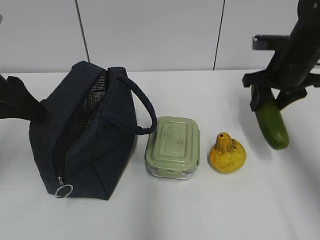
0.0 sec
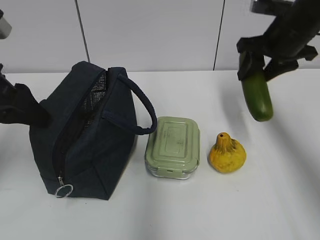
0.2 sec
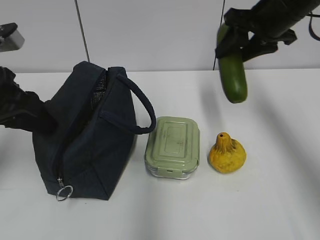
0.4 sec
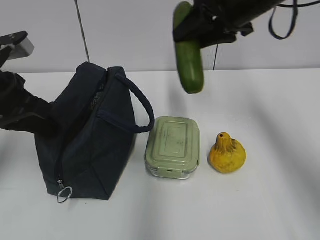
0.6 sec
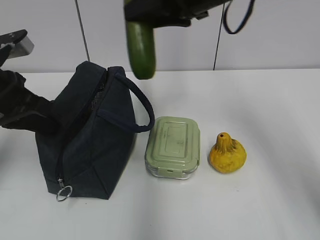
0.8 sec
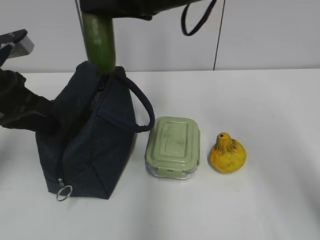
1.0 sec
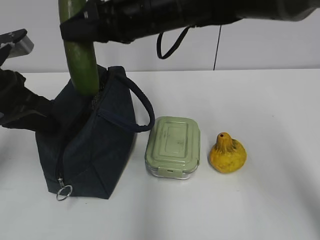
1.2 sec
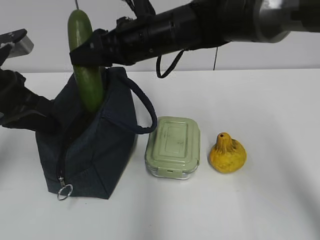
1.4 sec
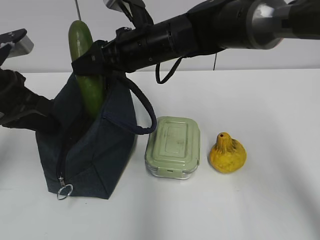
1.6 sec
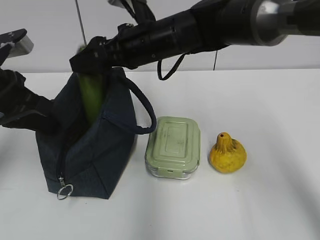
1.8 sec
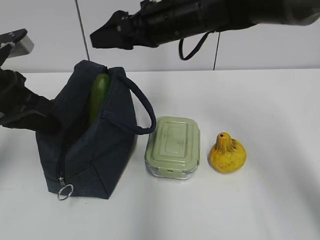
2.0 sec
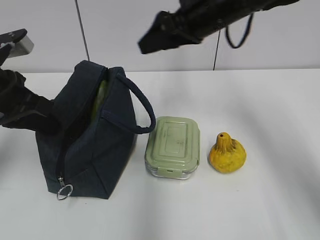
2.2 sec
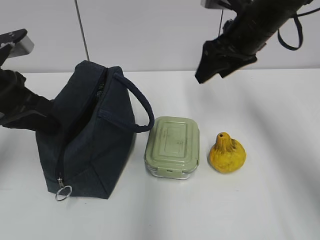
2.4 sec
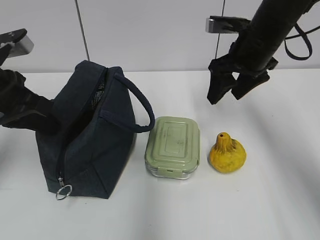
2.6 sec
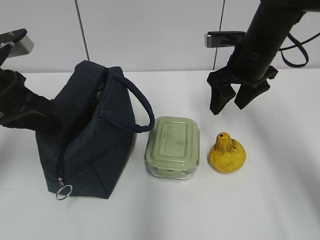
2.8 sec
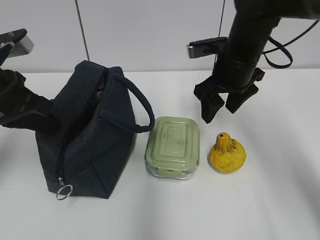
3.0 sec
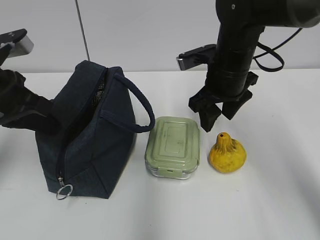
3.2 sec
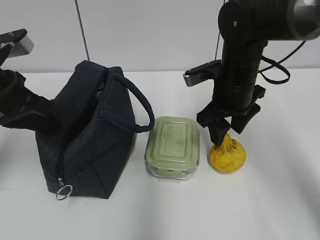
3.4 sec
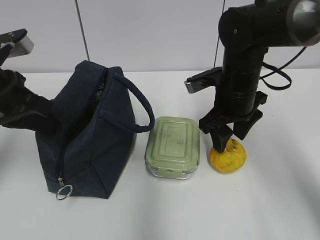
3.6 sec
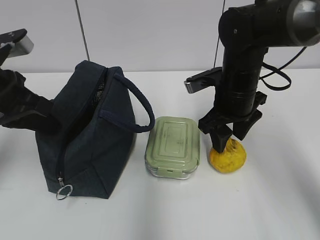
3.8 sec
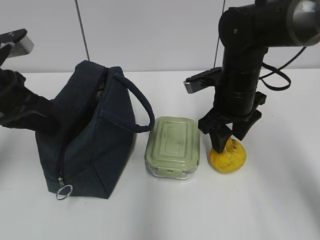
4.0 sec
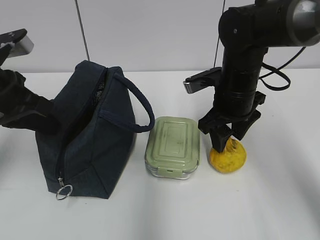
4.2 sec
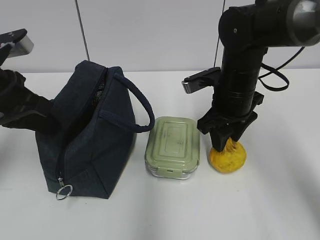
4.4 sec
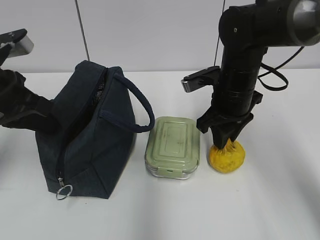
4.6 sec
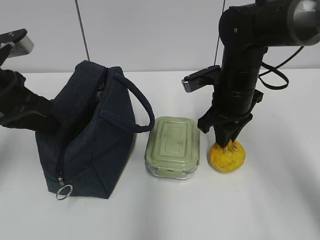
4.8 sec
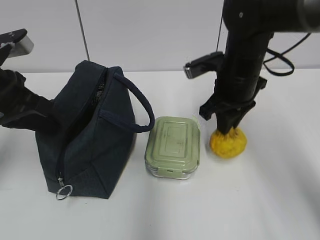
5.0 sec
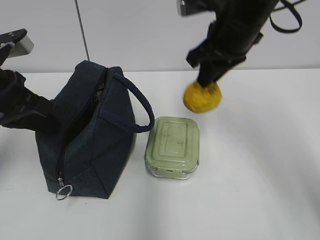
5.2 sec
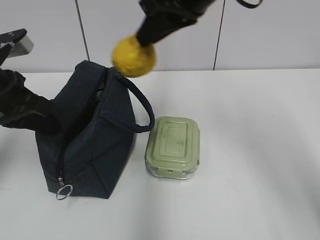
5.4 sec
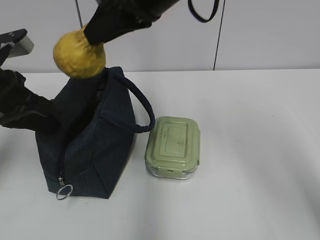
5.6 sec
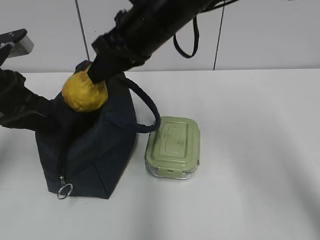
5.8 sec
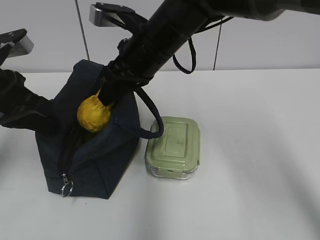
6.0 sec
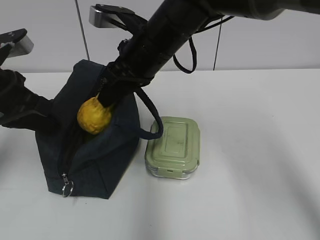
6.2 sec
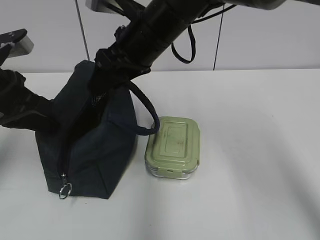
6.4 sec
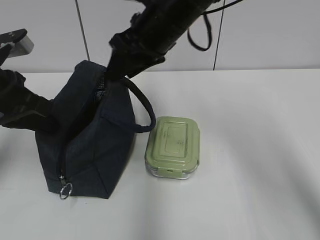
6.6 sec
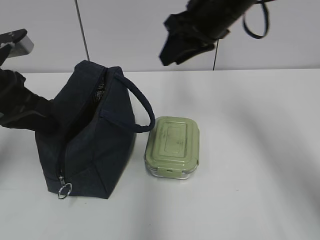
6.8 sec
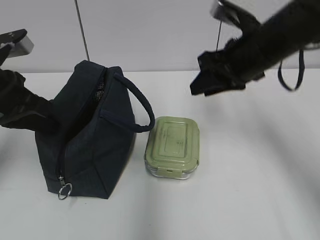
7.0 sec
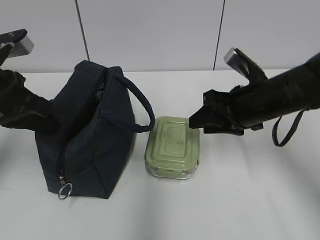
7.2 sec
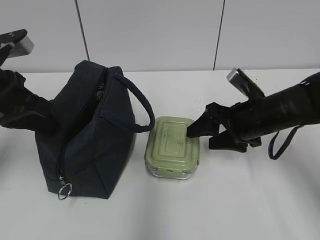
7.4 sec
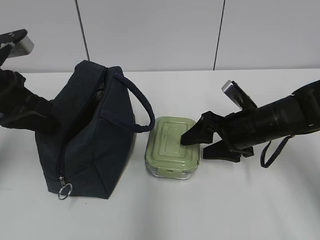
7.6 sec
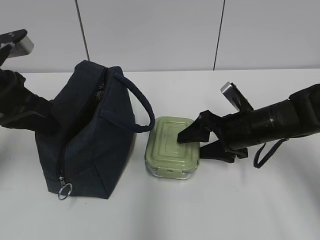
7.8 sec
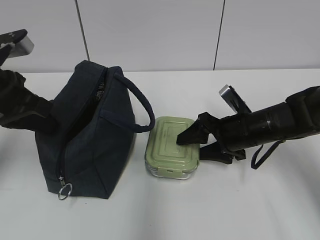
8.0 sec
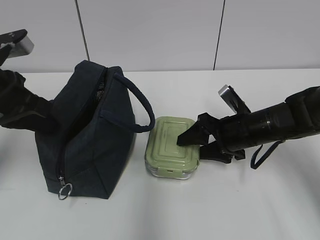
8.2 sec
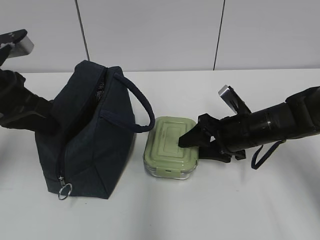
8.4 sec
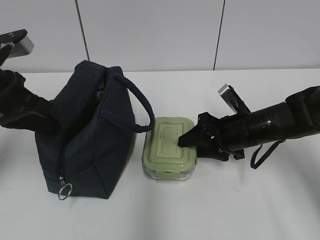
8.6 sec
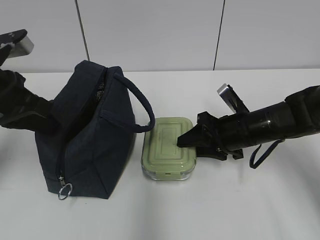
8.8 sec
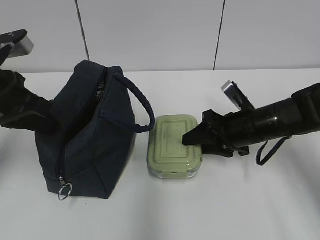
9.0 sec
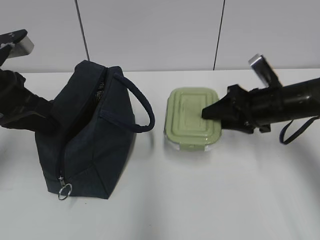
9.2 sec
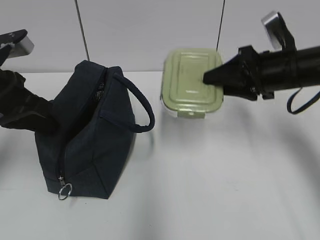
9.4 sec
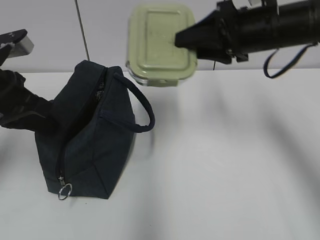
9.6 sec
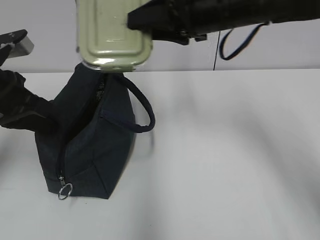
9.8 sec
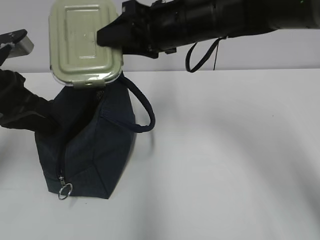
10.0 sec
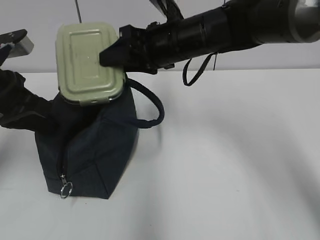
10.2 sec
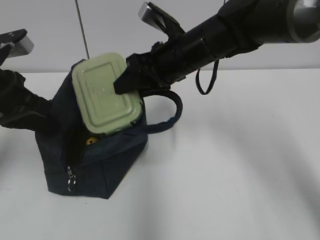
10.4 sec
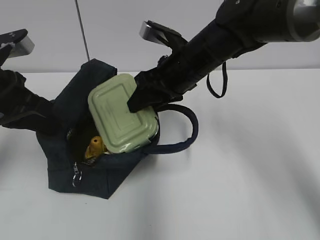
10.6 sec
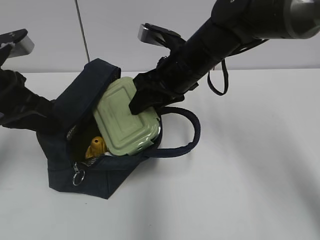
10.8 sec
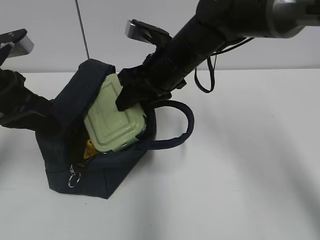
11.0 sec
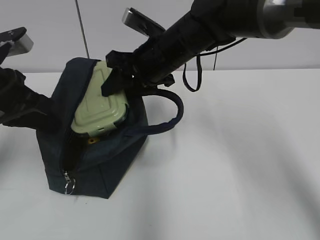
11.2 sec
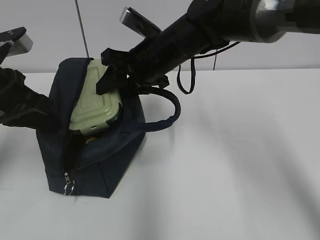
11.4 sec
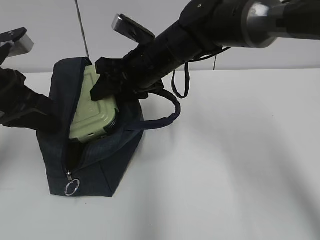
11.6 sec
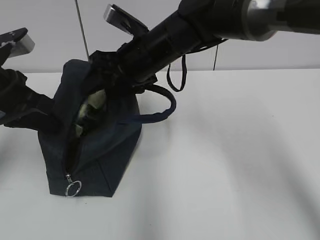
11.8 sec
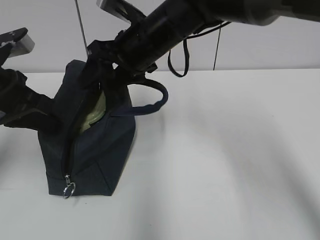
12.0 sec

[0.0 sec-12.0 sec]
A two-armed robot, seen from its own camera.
0.0 sec to 1.6 sec: The left gripper closes. Meanwhile the right gripper is displaced to the left by about 25 cm.
1.6 sec to 3.0 sec: The right gripper shifts approximately 15 cm to the right.
3.0 sec to 4.4 sec: The grippers make only small movements.
4.4 sec to 6.0 sec: The right gripper heads to the left and upward, covering roughly 15 cm, and closes up.
6.0 sec to 7.6 sec: The right gripper shifts roughly 20 cm to the right and downward, and opens.
7.6 sec to 9.0 sec: The right gripper closes.
9.0 sec to 10.4 sec: The right gripper moves to the left and upward, approximately 15 cm.
10.4 sec to 12.0 sec: The right gripper moves approximately 5 cm.

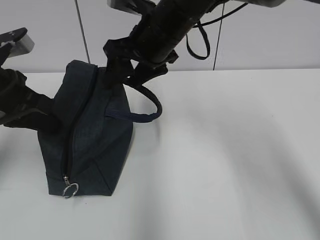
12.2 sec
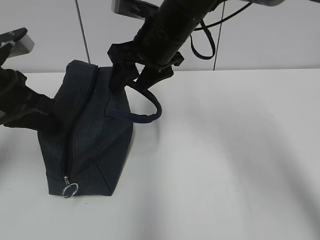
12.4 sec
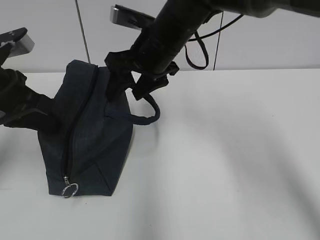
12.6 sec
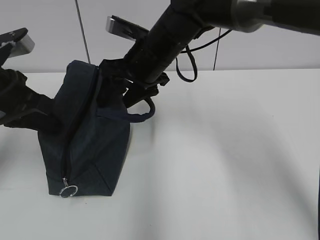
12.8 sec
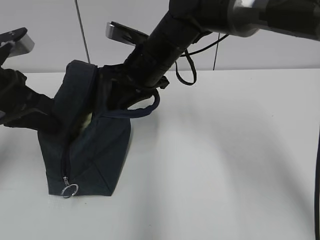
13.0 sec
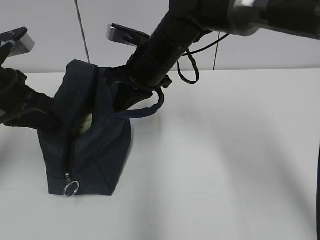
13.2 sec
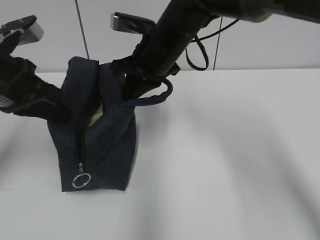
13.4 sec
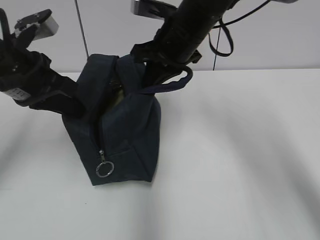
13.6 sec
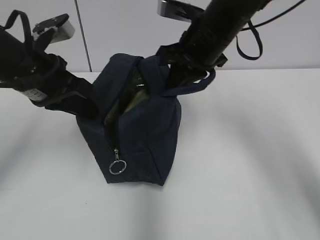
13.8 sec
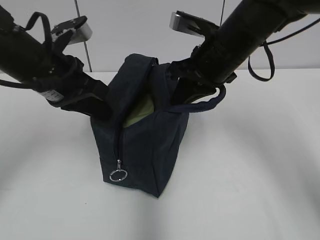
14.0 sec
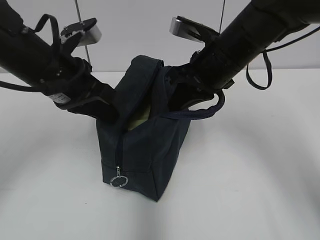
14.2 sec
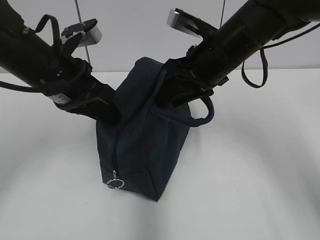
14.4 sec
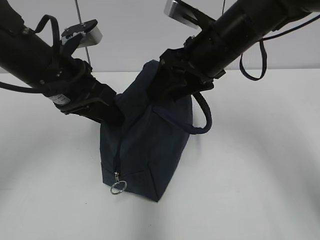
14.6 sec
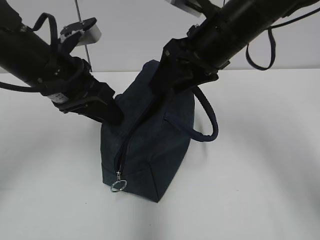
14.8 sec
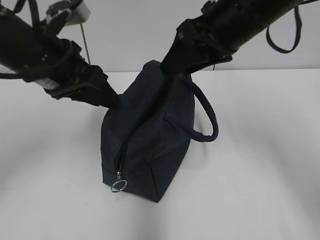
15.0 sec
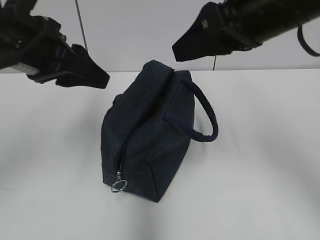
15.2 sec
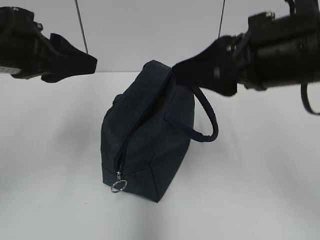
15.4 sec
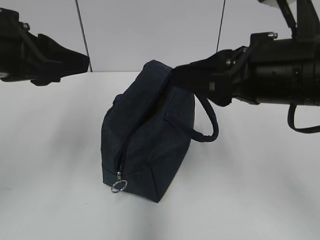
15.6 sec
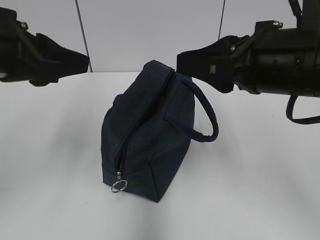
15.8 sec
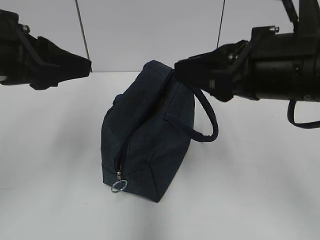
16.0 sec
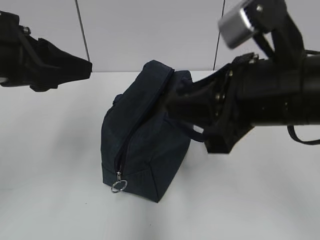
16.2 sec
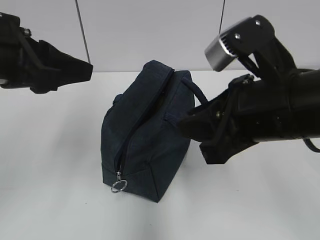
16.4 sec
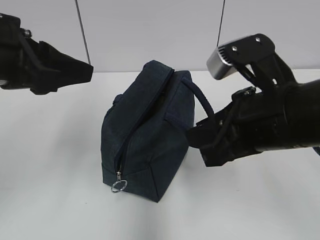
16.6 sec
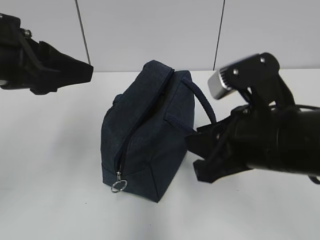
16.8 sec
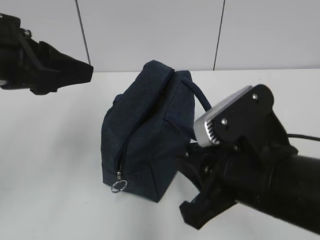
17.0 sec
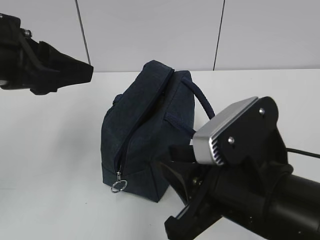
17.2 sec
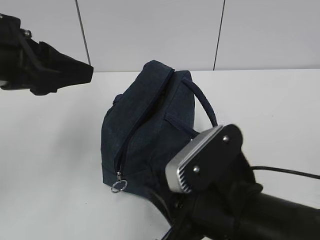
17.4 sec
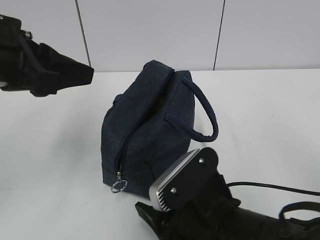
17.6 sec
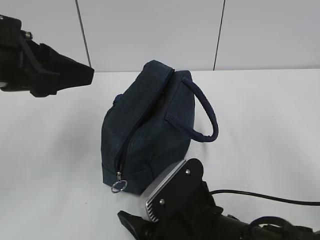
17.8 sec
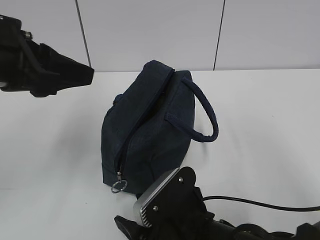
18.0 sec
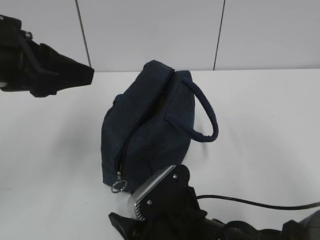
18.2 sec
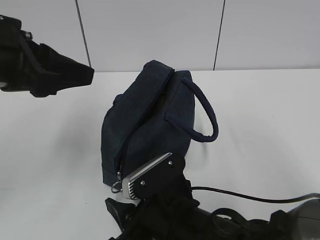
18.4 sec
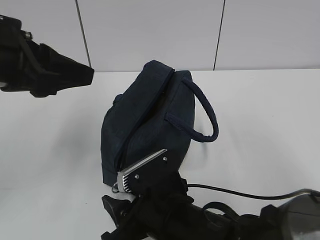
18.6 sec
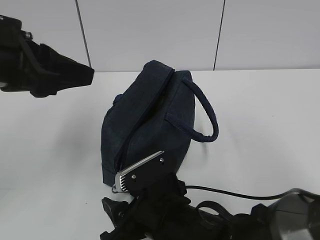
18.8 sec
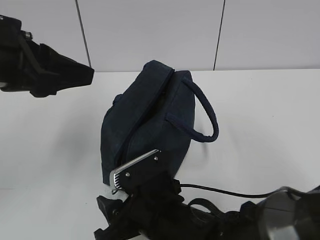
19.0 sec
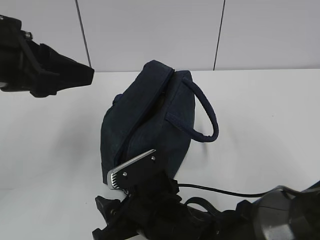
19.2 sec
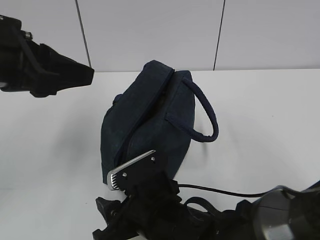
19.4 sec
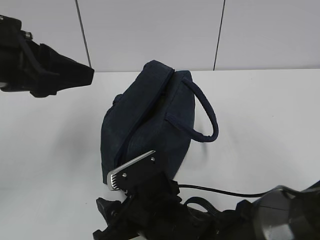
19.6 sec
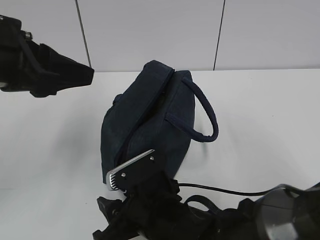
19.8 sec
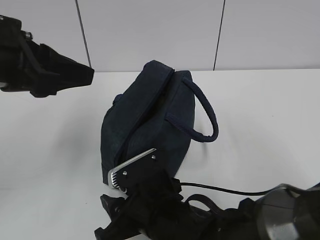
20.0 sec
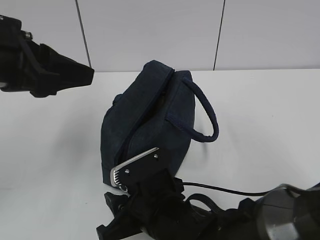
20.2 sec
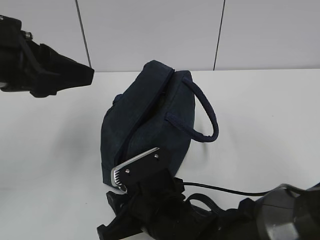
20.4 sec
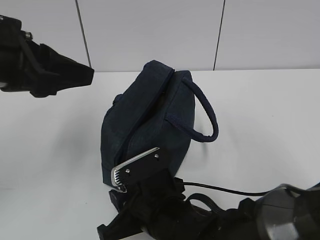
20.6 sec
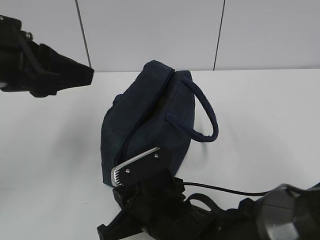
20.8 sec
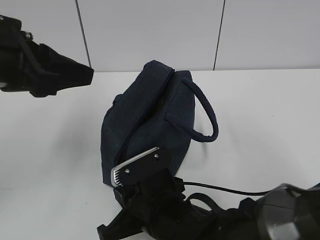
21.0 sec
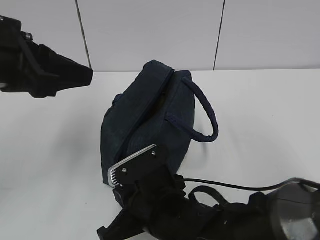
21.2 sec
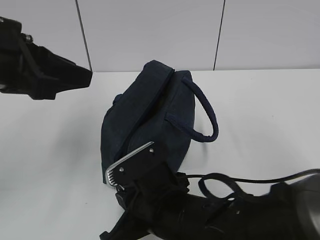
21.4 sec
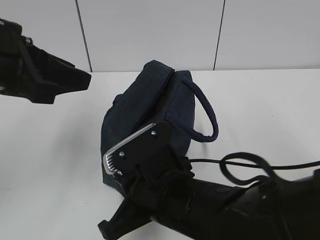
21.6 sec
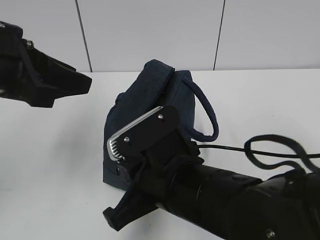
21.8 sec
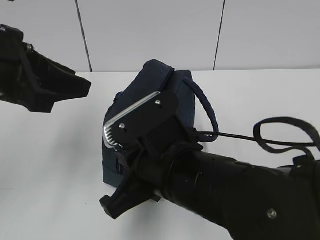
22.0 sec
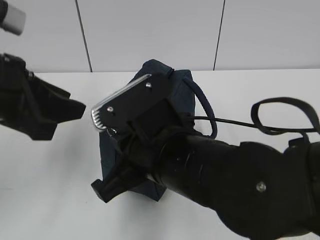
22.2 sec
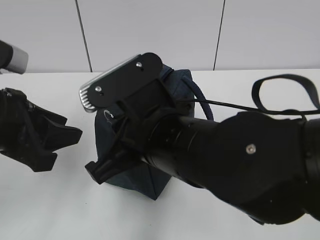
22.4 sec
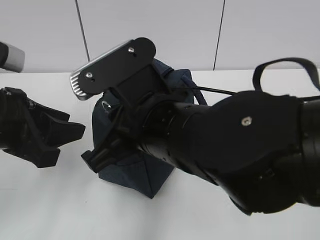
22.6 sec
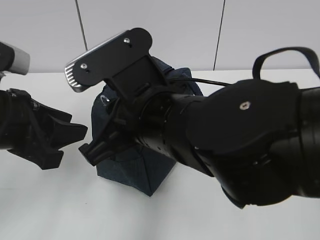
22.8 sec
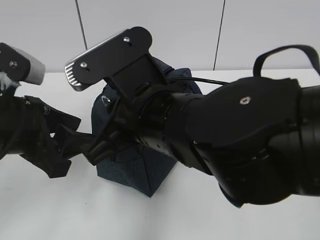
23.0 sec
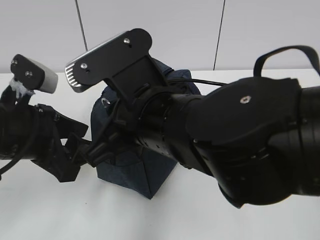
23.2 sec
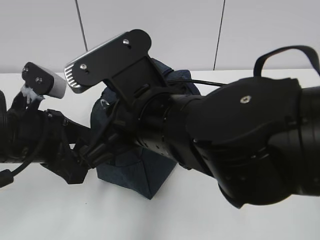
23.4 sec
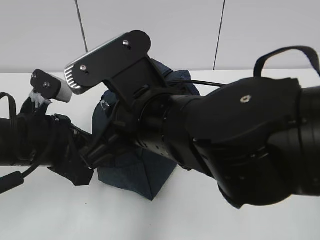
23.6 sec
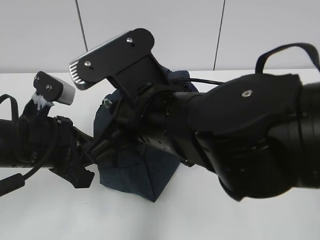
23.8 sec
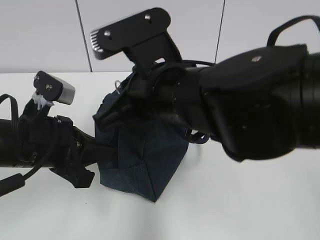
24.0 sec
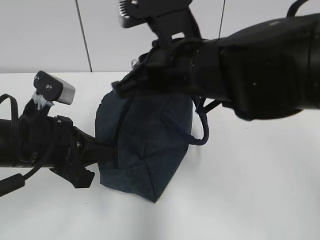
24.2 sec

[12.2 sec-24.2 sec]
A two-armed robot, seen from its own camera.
12.2 sec to 13.8 sec: Both grippers travel together to the right, about 5 cm. The right gripper closes.
13.8 sec to 15.2 sec: The right gripper shifts roughly 15 cm backward and upward, and opens up. The left gripper shifts about 5 cm upward, and opens.
15.2 sec to 16.6 sec: The right gripper is displaced downward and backward by some 10 cm.
16.6 sec to 18.2 sec: The right gripper is displaced downward and to the left by roughly 20 cm.
18.2 sec to 19.8 sec: The grippers move only a little.
19.8 sec to 21.2 sec: The right gripper closes up.
21.2 sec to 22.6 sec: The right gripper is displaced upward by roughly 15 cm. Meanwhile the left gripper moves downward, approximately 5 cm.
22.6 sec to 24.2 sec: The right gripper travels forward by about 5 cm; the left gripper travels downward by some 5 cm, and closes its fingers.
